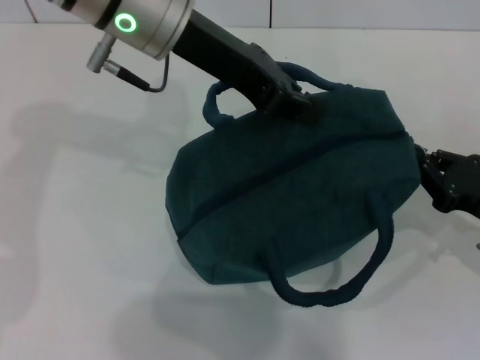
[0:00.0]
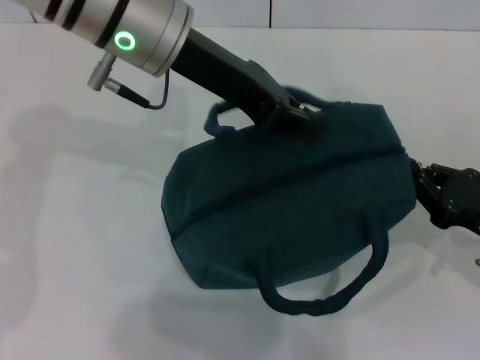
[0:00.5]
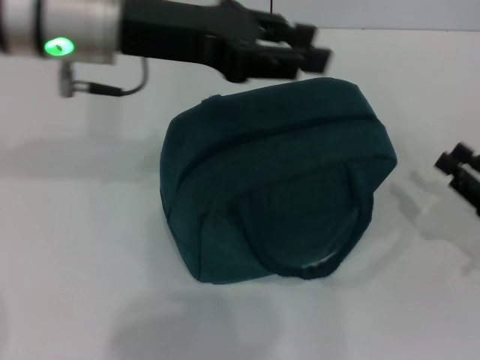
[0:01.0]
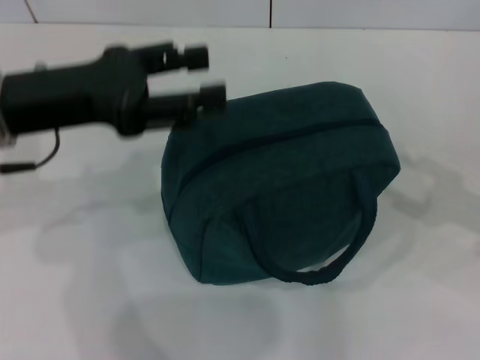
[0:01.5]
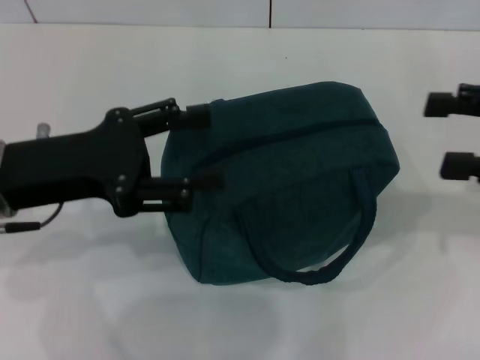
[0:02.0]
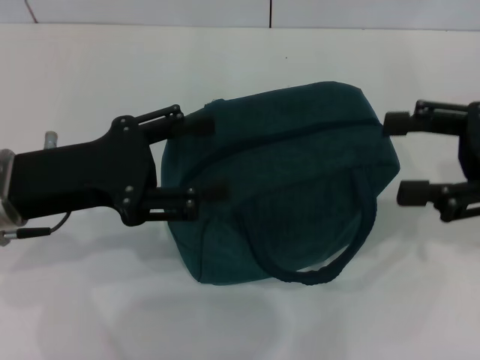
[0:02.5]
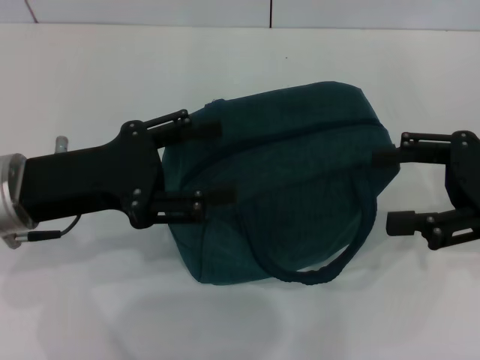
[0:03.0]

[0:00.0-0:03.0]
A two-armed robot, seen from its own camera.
0:00.0 to 0:01.5: The right gripper shifts about 10 cm upward and to the right, and opens up, while the left gripper moves to the left, backward and downward, about 15 cm, and opens.
0:01.5 to 0:03.0: The left gripper moves downward, some 5 cm, and opens its fingers. The right gripper shifts some 10 cm to the left.
